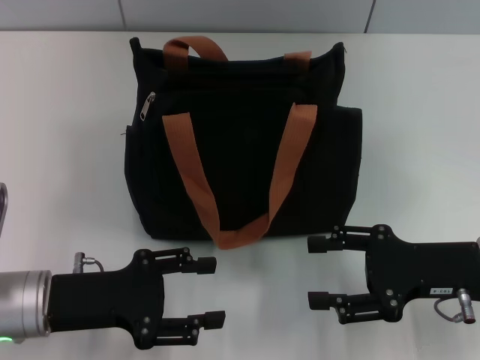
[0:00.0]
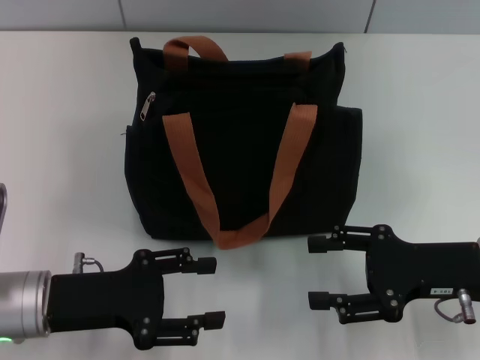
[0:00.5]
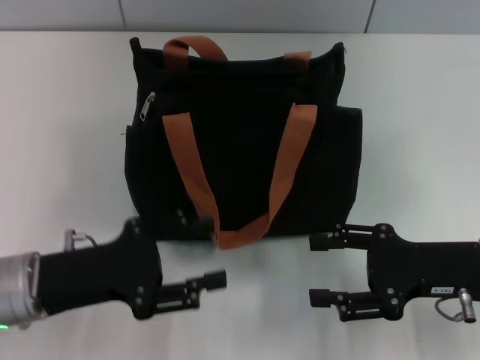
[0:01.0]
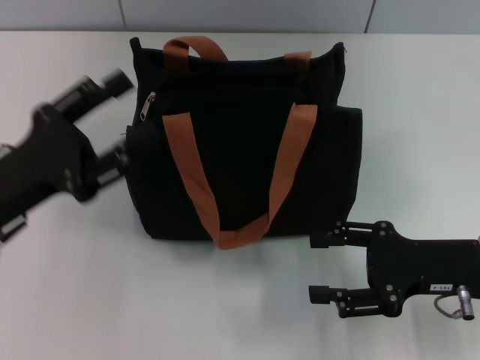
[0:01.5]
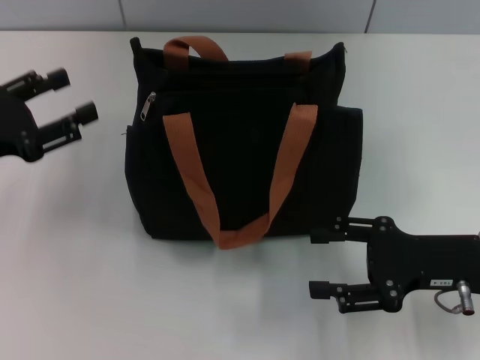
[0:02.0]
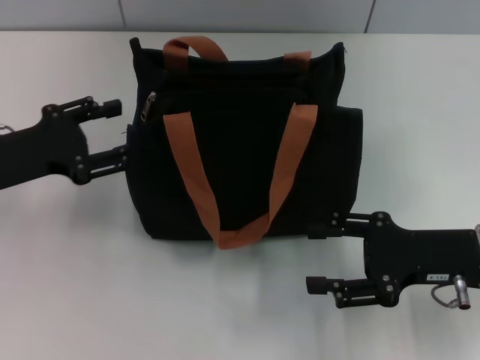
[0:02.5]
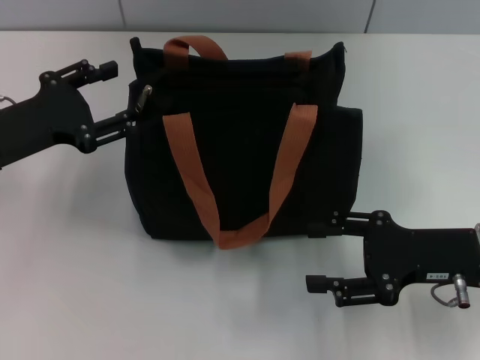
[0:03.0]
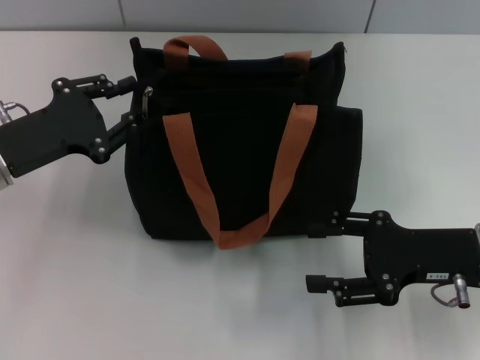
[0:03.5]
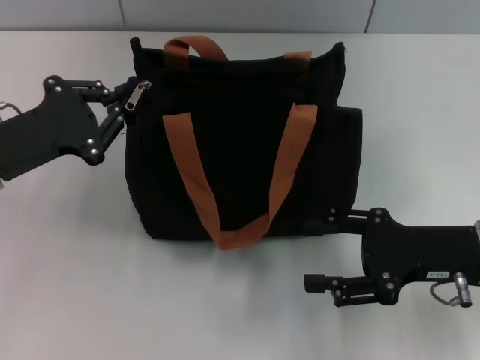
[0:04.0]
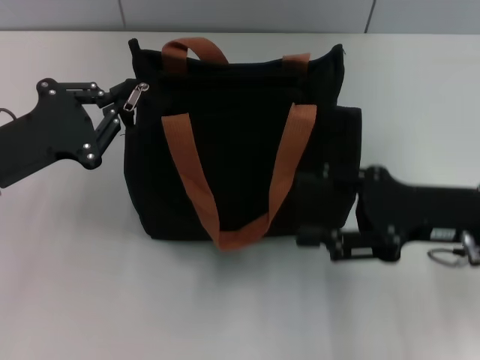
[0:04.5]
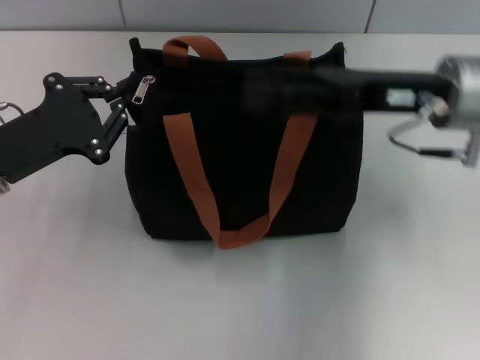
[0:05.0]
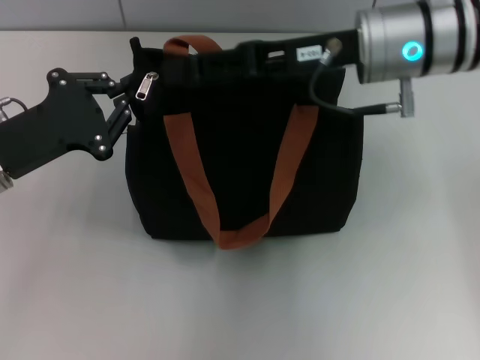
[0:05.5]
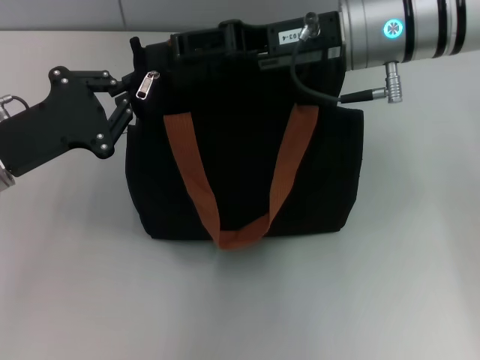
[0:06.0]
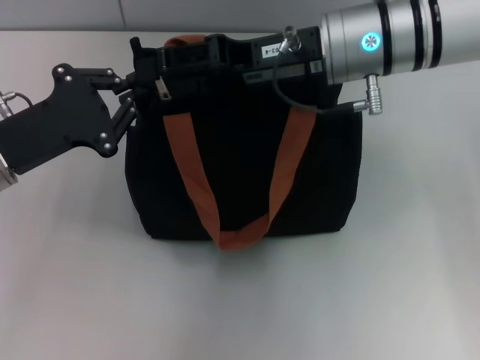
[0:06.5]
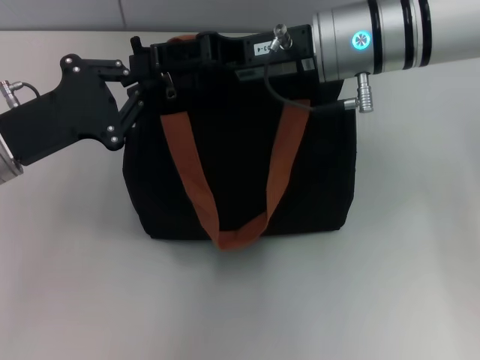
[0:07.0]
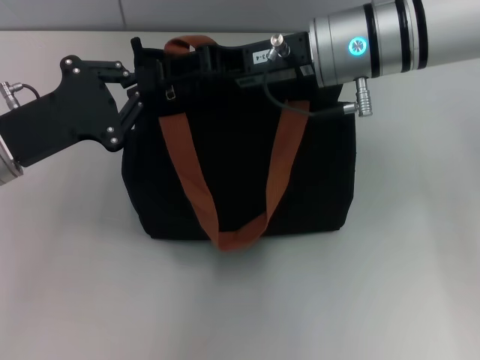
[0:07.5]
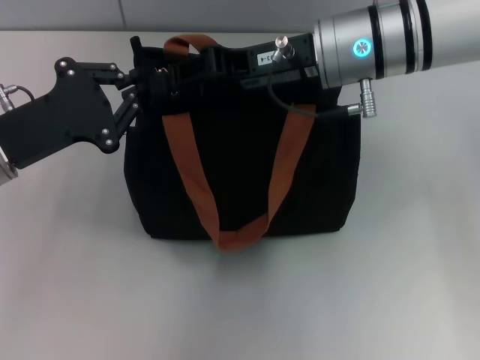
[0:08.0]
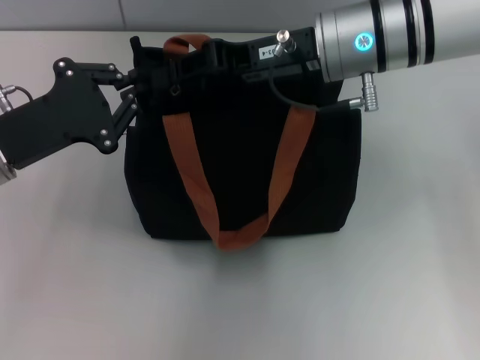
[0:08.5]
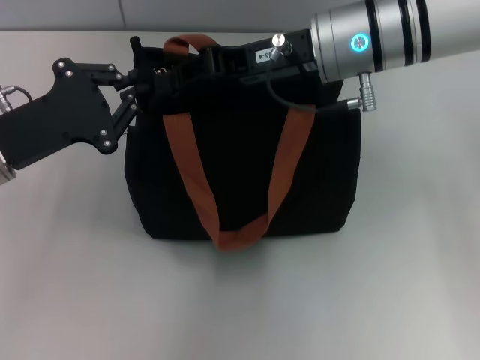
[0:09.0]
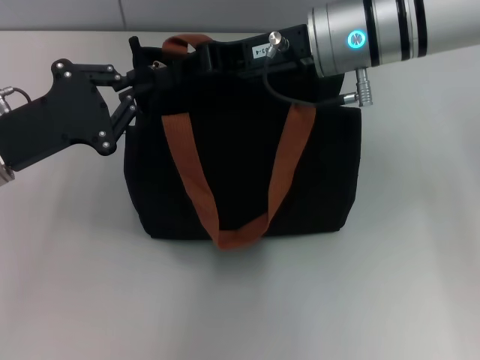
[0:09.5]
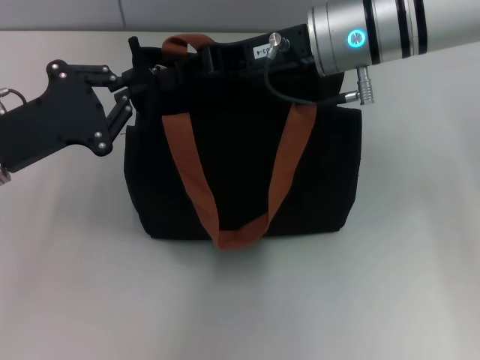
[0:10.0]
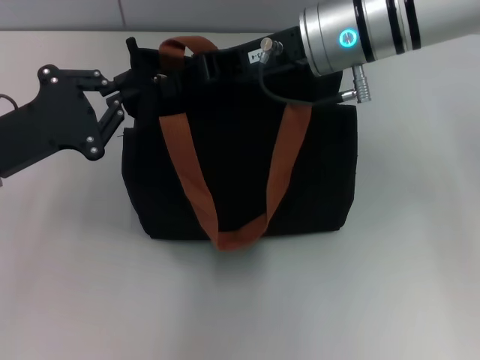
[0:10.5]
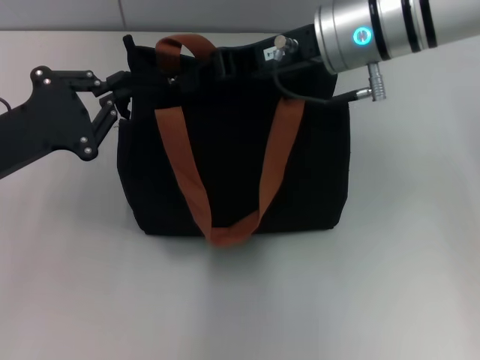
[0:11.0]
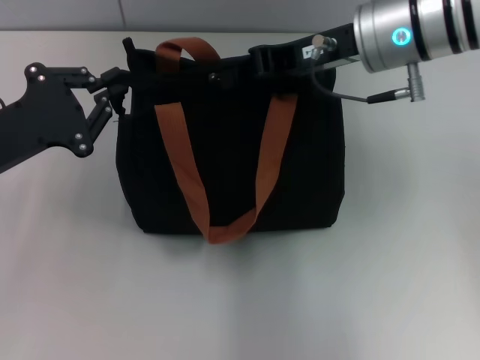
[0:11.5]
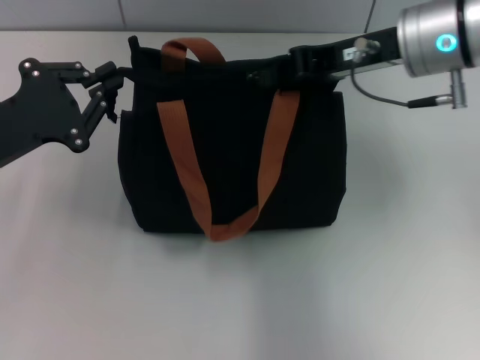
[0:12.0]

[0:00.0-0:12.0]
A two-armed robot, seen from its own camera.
0:00.0 to 0:02.0: The left gripper shifts some 15 cm to the left, forward and upward.
0:02.0 to 0:04.0: The left gripper shifts roughly 5 cm to the right, and closes up.
0:04.0 to 0:06.0: The right gripper moves to the left, forward and upward, roughly 25 cm.
0:06.0 to 0:08.0: The right gripper closes.
0:08.0 to 0:10.0: The right gripper closes.
0:10.0 to 0:12.0: The right gripper moves to the right, about 5 cm.

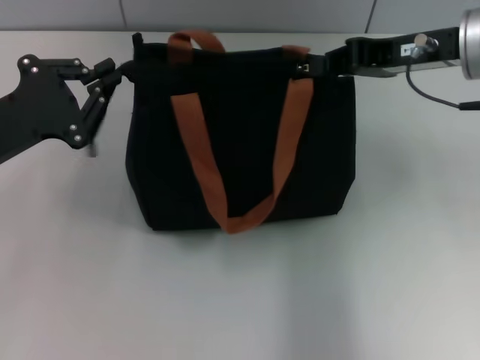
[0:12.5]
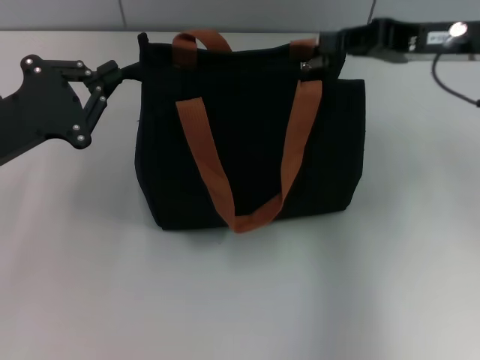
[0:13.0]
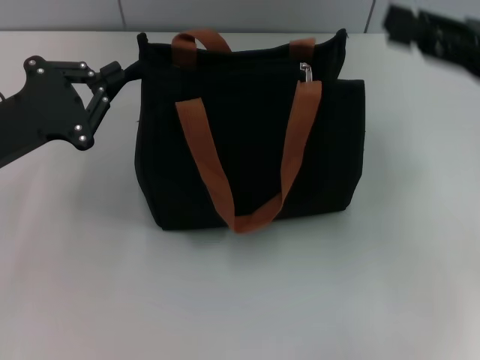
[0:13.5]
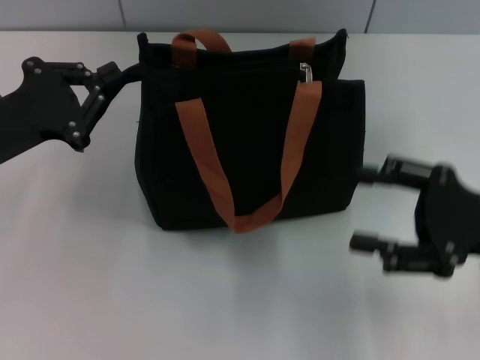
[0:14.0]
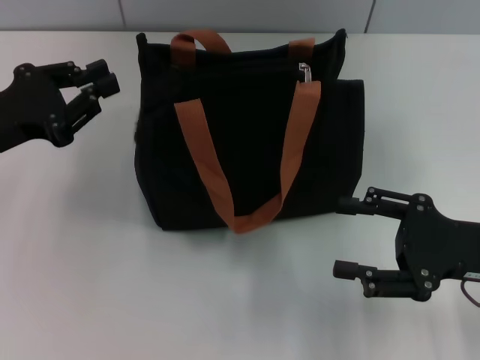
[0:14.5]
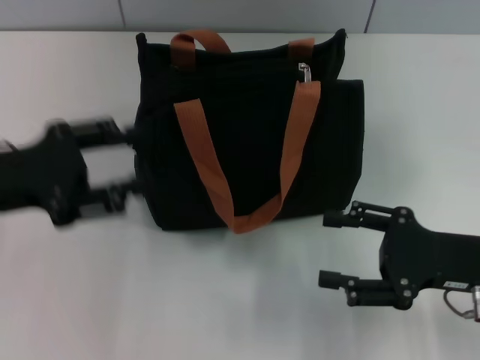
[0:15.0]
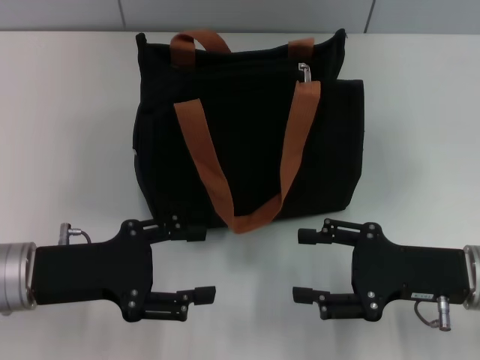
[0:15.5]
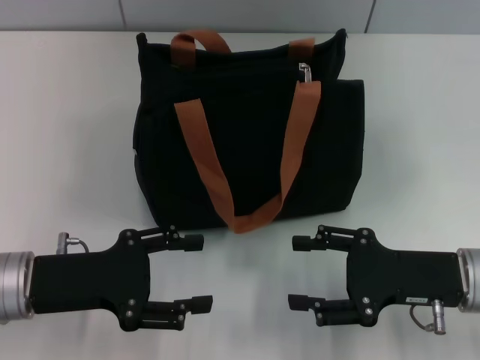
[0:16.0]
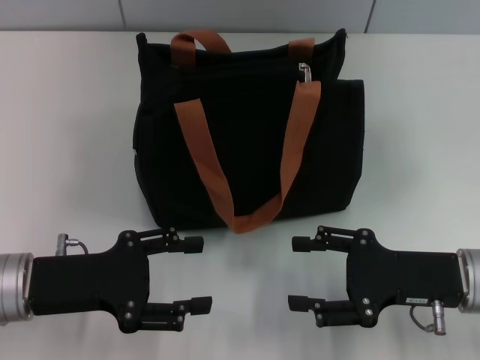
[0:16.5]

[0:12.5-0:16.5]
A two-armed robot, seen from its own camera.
0:12.5 to 0:14.5: The right gripper goes about 20 cm backward, downward and to the right, and opens.
0:14.5 to 0:16.5: The right gripper moves roughly 5 cm. The left gripper goes approximately 10 cm backward, downward and to the right, and opens up.
